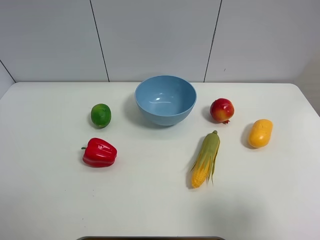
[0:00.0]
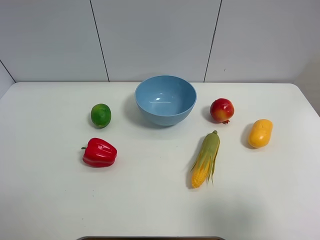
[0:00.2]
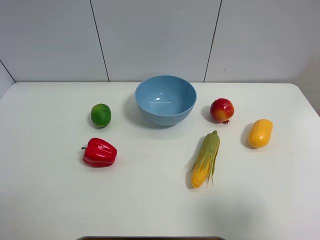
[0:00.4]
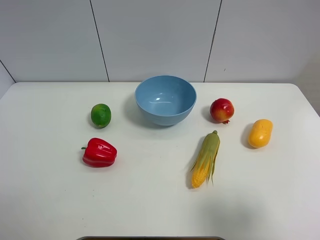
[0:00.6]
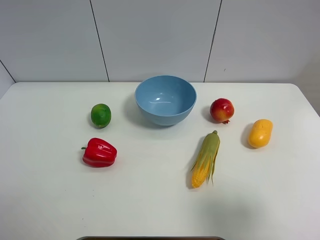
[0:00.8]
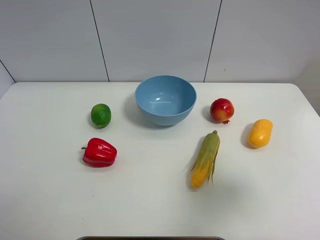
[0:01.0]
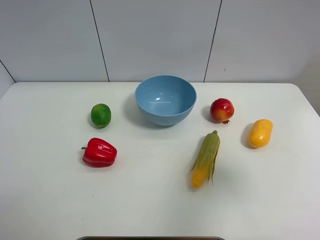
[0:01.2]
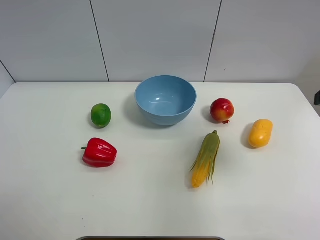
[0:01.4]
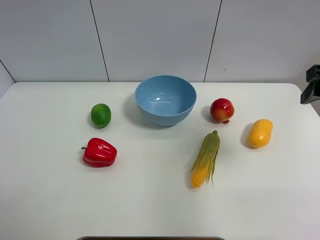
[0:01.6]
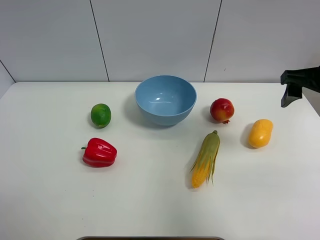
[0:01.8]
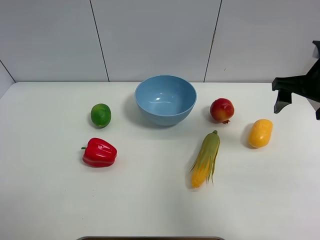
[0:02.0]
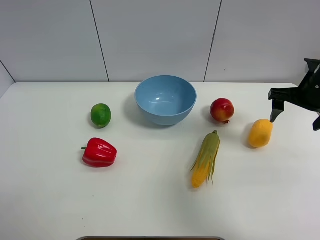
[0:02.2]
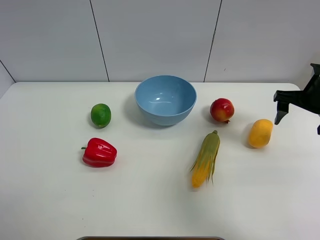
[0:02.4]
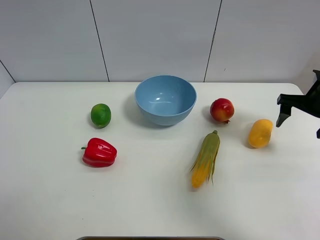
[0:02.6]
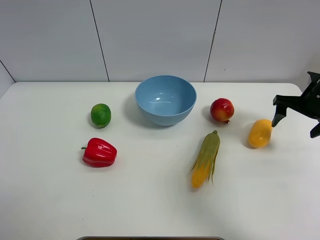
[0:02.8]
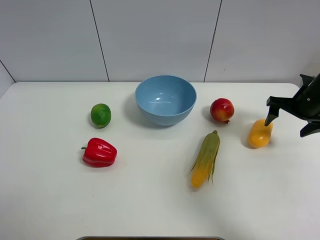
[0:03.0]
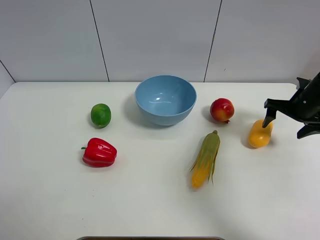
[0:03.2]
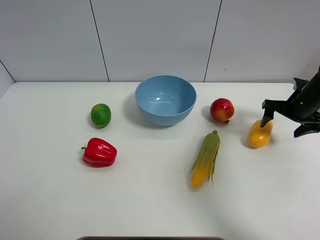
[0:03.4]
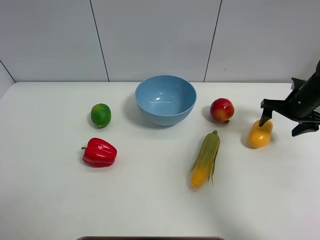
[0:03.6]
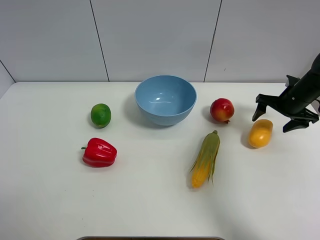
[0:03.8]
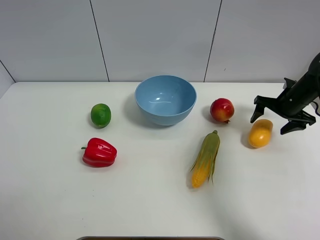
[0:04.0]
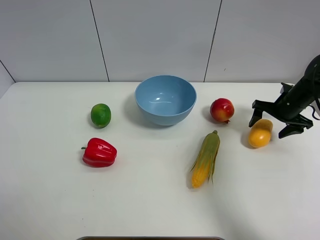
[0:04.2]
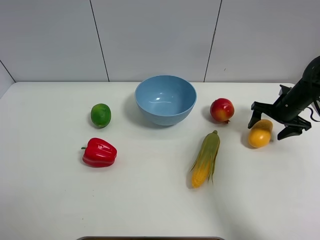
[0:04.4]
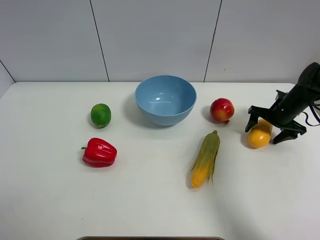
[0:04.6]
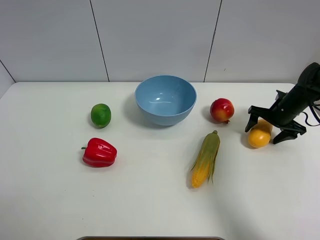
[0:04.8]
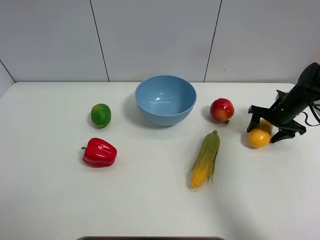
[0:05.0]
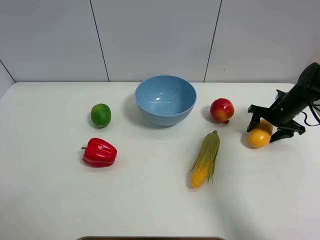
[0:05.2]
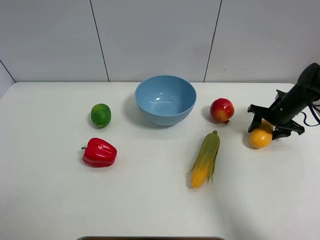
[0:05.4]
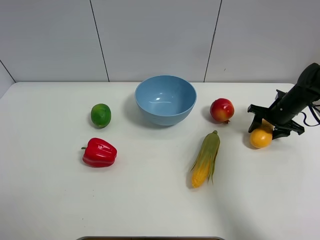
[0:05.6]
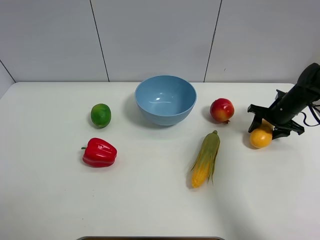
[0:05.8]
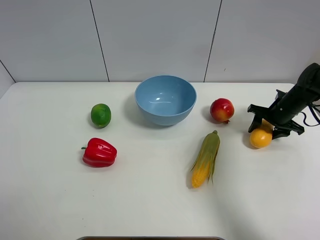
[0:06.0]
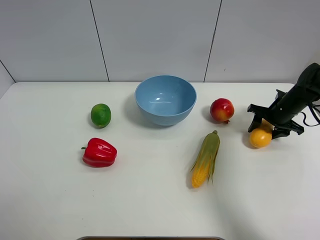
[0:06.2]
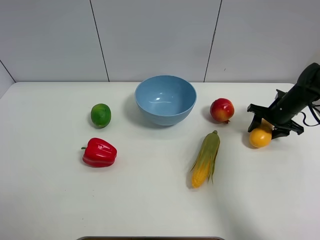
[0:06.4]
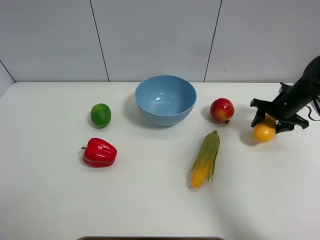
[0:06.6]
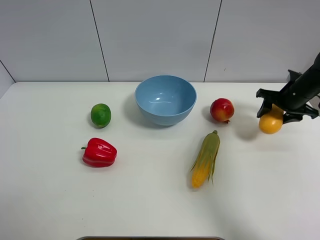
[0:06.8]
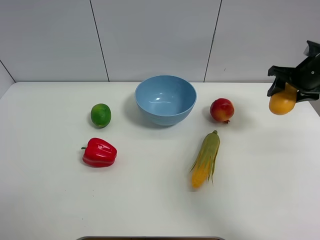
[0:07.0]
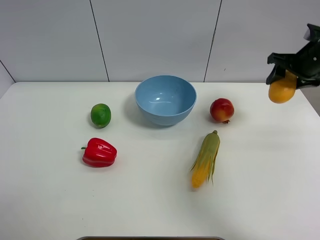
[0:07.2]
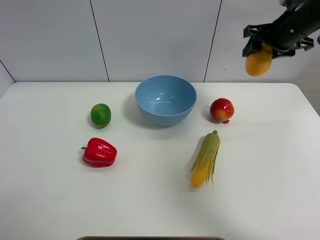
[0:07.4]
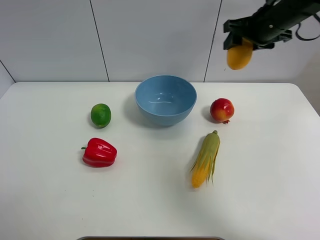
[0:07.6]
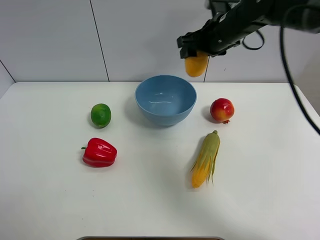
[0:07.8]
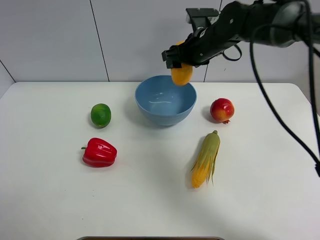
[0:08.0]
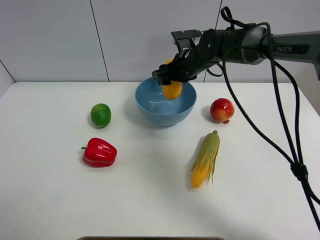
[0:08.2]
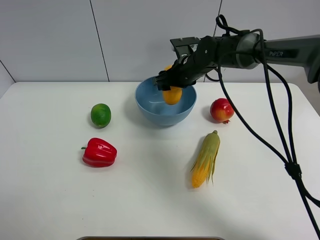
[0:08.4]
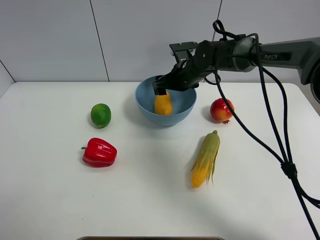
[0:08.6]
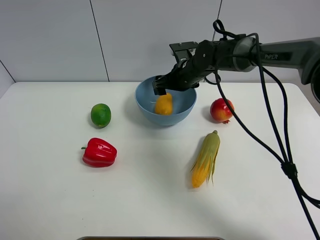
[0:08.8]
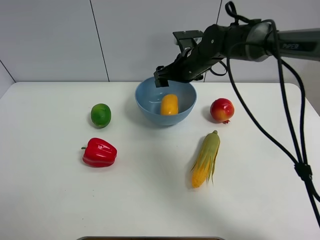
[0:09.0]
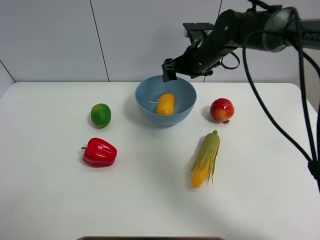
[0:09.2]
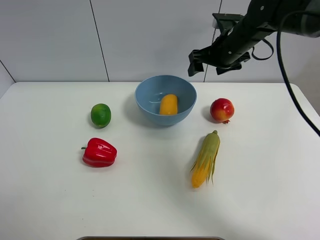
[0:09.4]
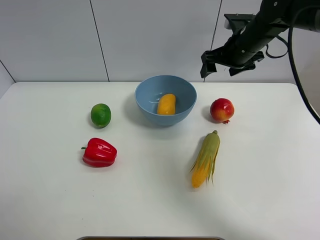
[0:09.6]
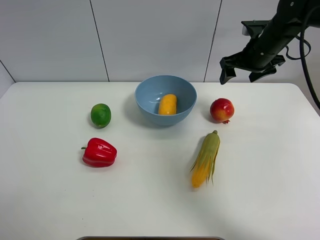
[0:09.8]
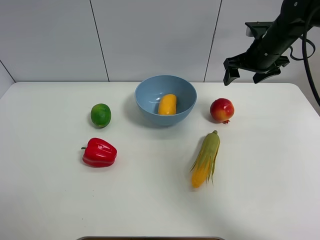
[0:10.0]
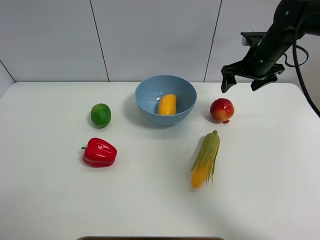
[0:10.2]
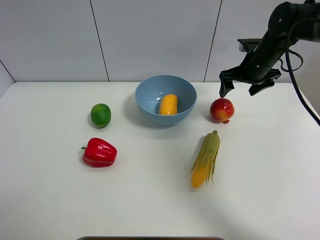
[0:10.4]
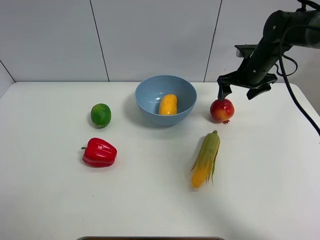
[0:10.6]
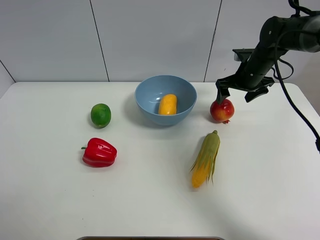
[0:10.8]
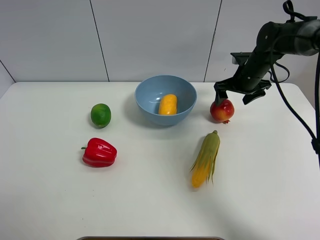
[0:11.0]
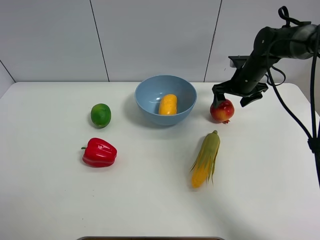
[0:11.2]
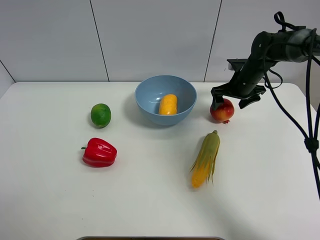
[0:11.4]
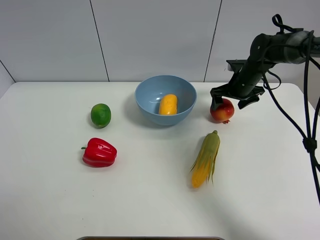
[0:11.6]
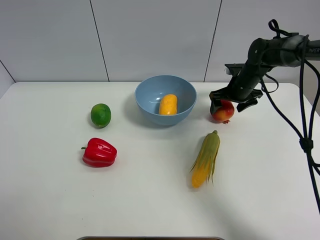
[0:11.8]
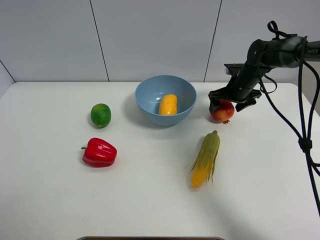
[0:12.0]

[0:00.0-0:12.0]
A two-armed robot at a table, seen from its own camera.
Task of the whole recording: Put the three fruits on the table into a bowl.
Step, 0:00.0 to 0:05.4: Grasp the mango with right gripper.
Step, 0:05.6 to 0:08.6: Place the mango in the blue bowl with right gripper.
0:00.0 to 0:01.6: The right gripper is displaced forward by about 20 cm.
0:01.6 to 0:03.0: The right gripper is displaced downward and forward by roughly 20 cm.
0:03.0 to 0:04.4: The right gripper travels downward by some 5 cm.
0:04.4 to 0:06.0: The right gripper closes up.
0:06.0 to 0:07.6: The right gripper moves upward and to the left, about 25 cm.
0:07.6 to 0:09.0: The right gripper is displaced to the left and downward by approximately 15 cm, and opens.
0:09.0 to 0:10.4: The right gripper moves to the right, approximately 15 cm.
0:10.4 to 0:12.0: The right gripper shifts some 10 cm downward.

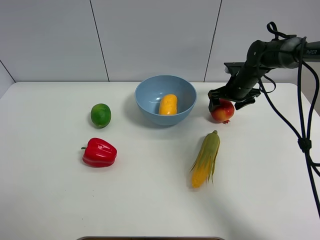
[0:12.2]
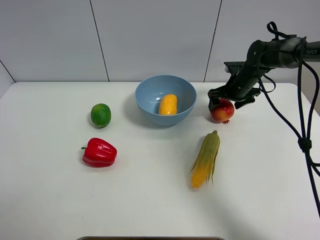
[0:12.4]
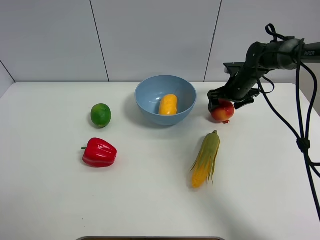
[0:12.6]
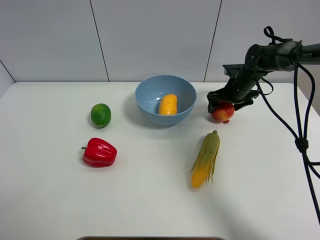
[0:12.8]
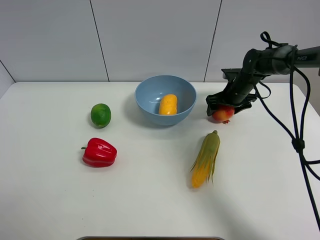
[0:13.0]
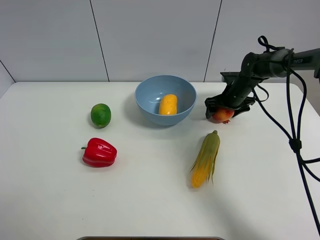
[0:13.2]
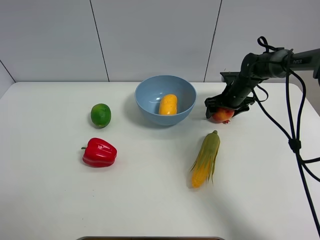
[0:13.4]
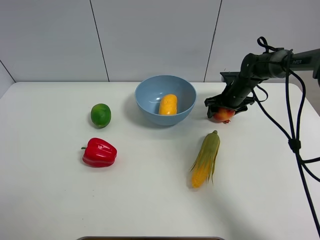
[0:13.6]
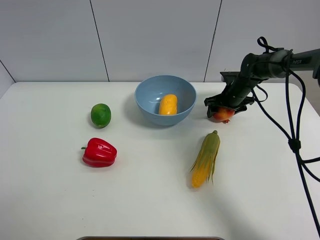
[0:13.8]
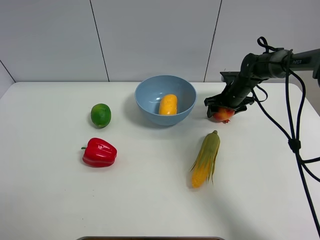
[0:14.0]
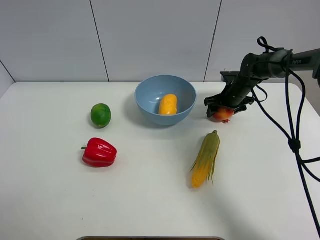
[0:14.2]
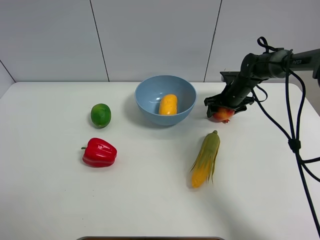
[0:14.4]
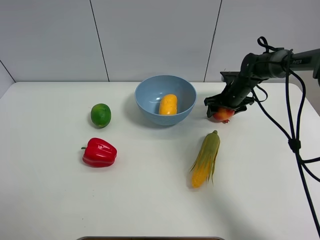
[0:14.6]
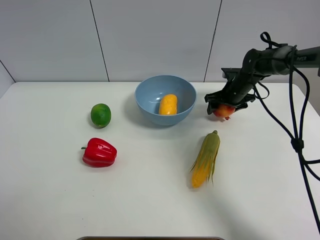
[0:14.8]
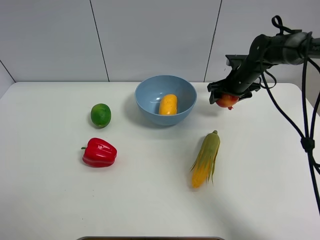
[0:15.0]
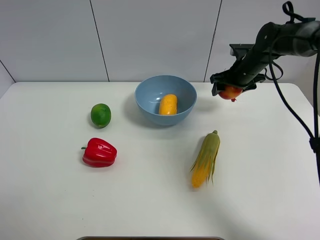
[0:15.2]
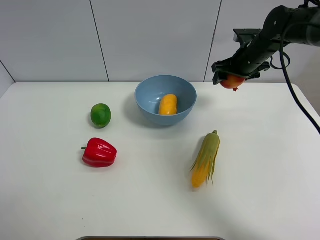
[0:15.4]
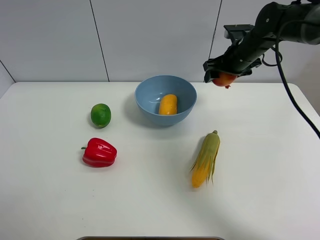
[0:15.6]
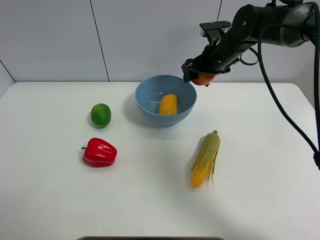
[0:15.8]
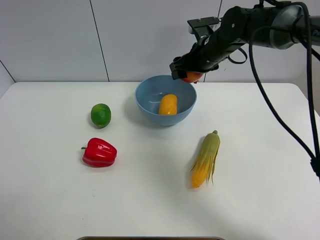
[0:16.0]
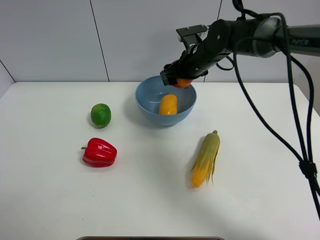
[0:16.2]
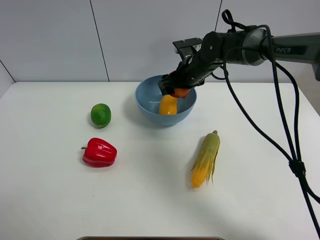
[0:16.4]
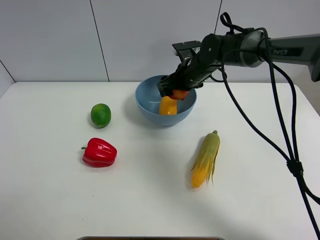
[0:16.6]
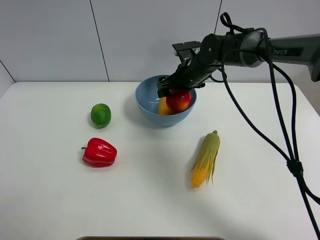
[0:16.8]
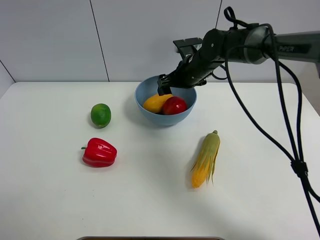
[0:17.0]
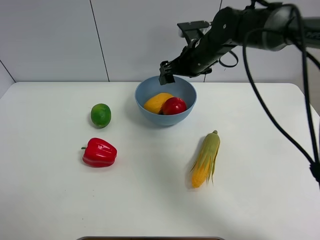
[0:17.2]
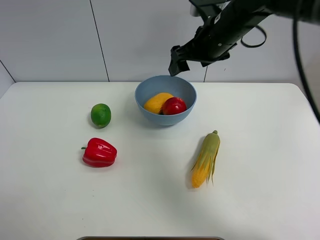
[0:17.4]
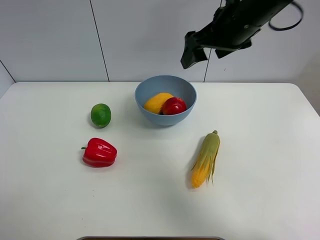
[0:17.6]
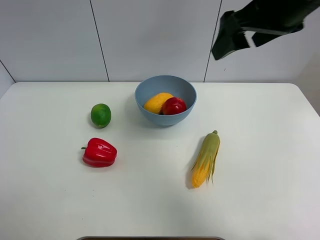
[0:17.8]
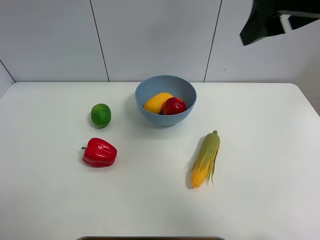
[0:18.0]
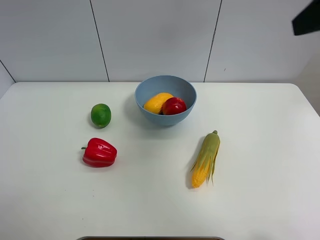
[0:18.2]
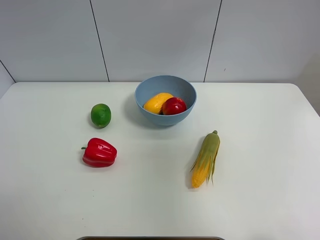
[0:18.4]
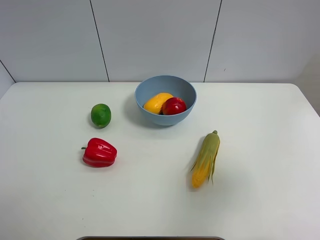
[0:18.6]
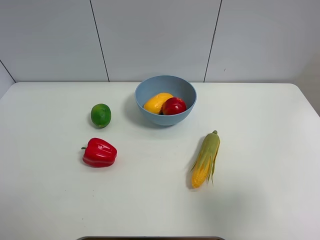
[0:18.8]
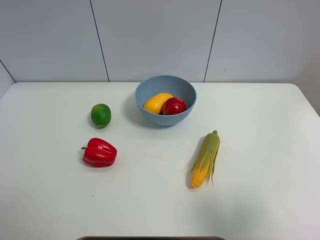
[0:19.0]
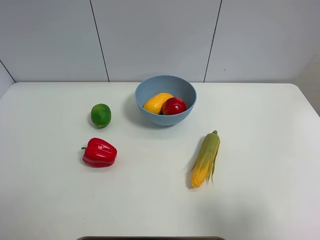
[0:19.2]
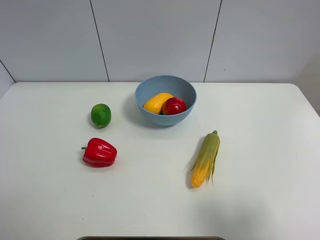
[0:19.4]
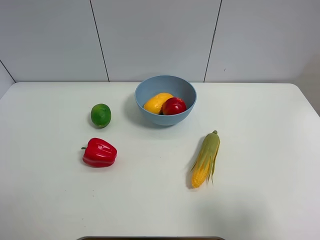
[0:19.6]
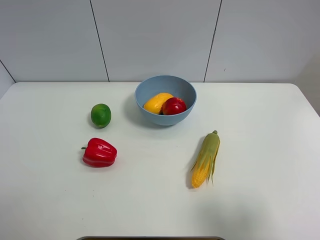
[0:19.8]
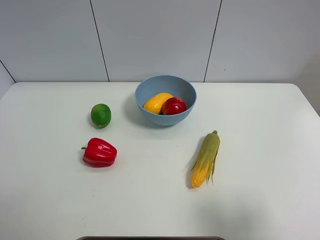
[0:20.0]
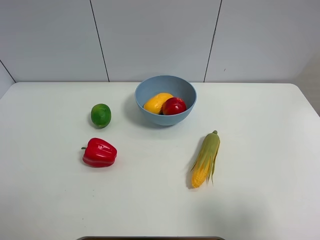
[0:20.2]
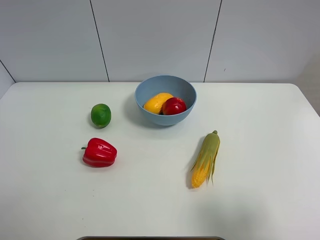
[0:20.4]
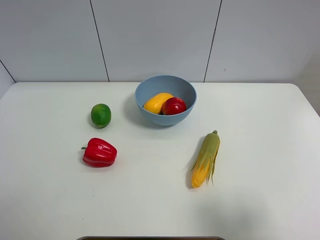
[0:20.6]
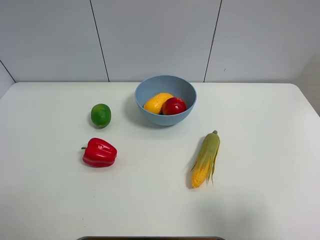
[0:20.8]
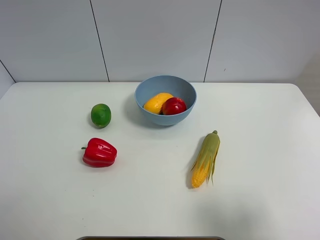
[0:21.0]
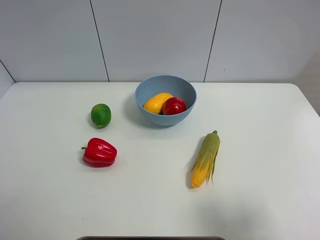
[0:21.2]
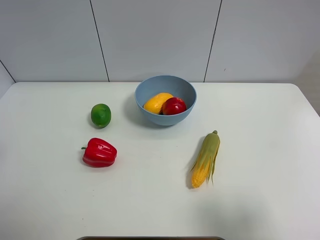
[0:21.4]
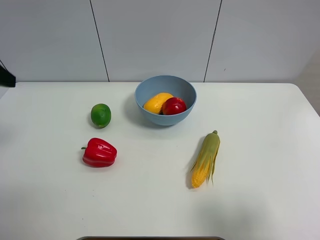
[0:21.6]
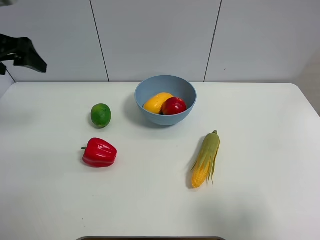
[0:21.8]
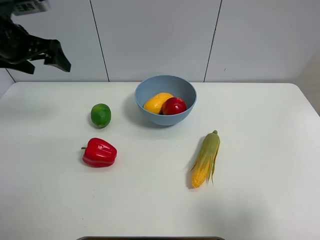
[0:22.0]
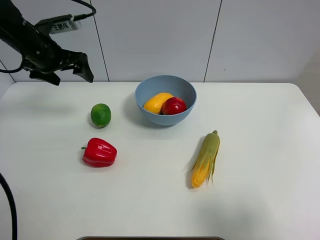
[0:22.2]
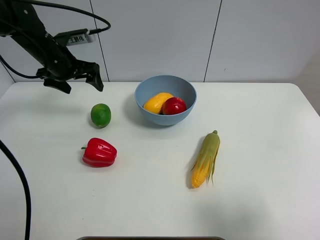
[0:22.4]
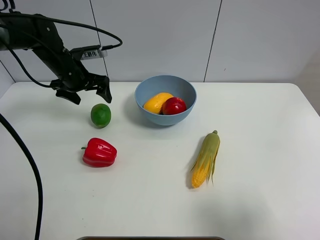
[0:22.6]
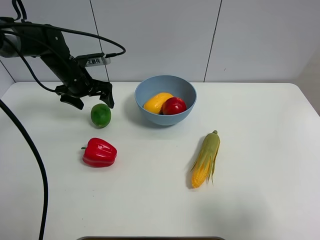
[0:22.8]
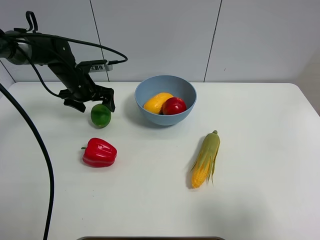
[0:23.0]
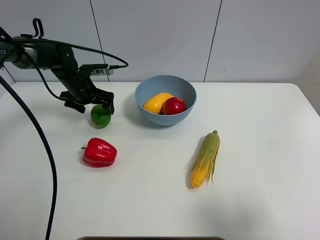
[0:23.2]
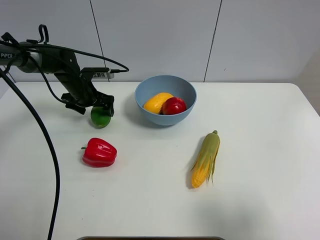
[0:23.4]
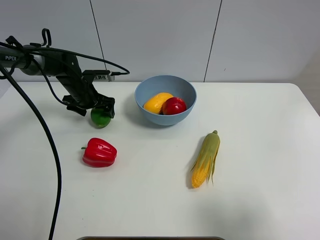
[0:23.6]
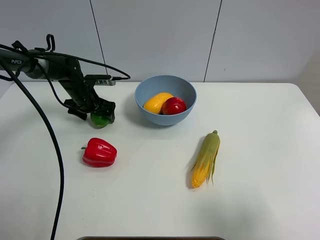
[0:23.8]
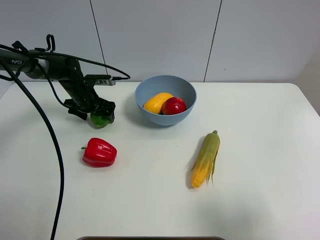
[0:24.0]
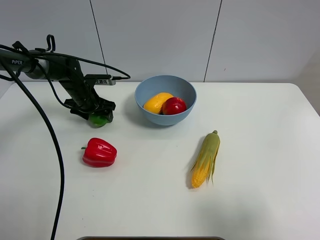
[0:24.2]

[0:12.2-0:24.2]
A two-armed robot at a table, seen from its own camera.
Task of the whole recording: Put the three fruits on the table into a bowl.
Step, 0:13.8 to 0:16.8: Place the pomegranate in the blue bowl with right gripper.
0:12.2 to 0:13.8: The right gripper closes up.
0:13.8 to 0:15.2: The right gripper is displaced upward by about 10 cm.
0:15.2 to 0:16.6: The right gripper goes roughly 15 cm to the left.
0:16.6 to 0:18.2: The right gripper is displaced upward, backward and to the right by approximately 40 cm, and opens its fingers.
0:18.2 to 0:19.8: The right gripper goes approximately 25 cm downward and backward.
0:21.2 to 0:22.6: The left gripper goes some 35 cm forward.
0:22.6 to 0:24.2: The left gripper shifts some 10 cm downward, and closes.
